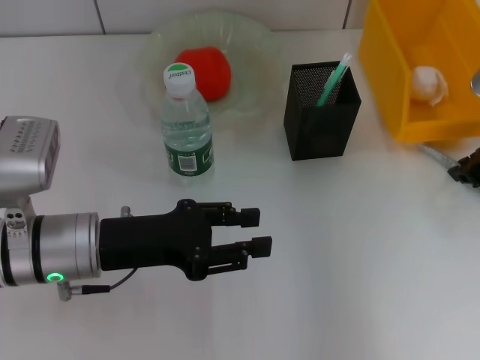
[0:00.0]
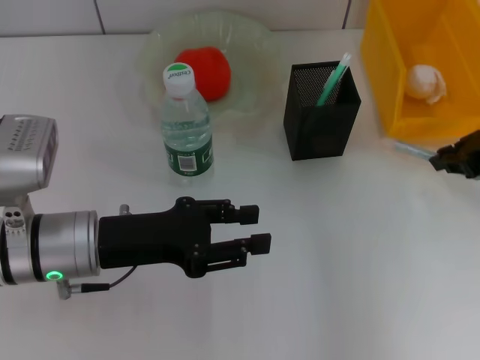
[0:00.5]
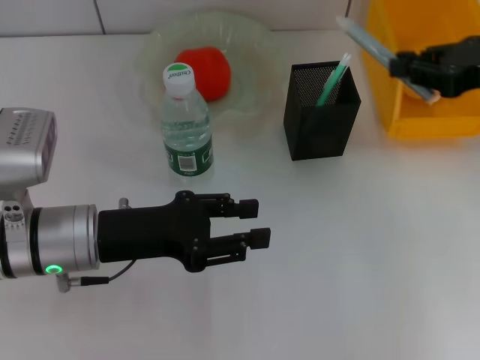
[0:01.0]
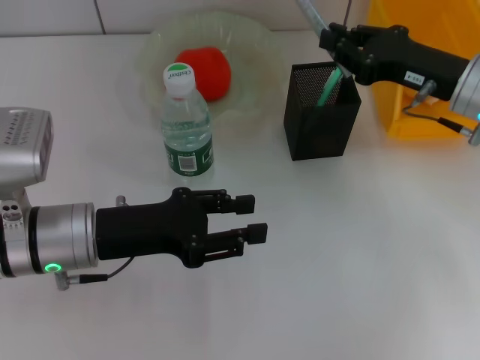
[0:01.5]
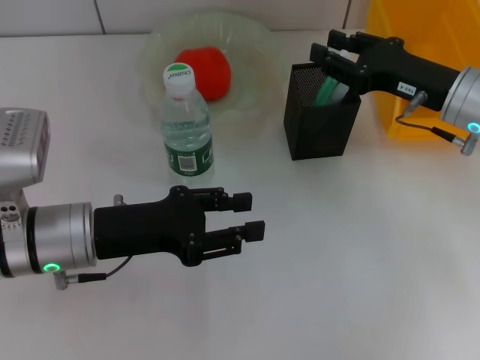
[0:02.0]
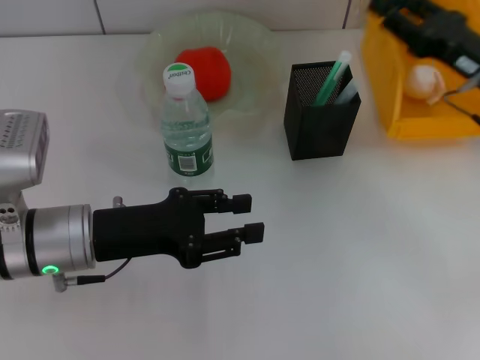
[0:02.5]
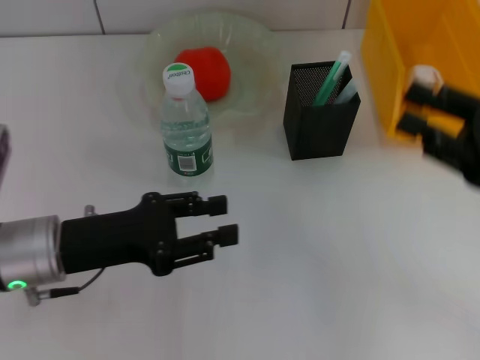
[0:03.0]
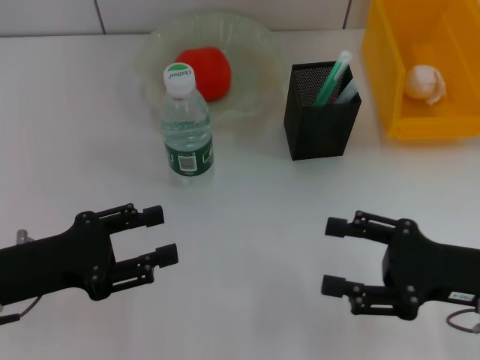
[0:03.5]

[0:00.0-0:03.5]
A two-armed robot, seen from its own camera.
Step, 0:00.5 to 0:02.0: Place the gray glue into the pen holder with the right hand.
0:00.0 to 0:02.0: The right gripper moves to the left, some 5 cm, and travels upward and back again, approximately 5 cm each way.
0:02.0 to 0:03.5: The right gripper is displaced backward by approximately 15 cm, and opens up; the left gripper shifts approximately 10 cm to the left.

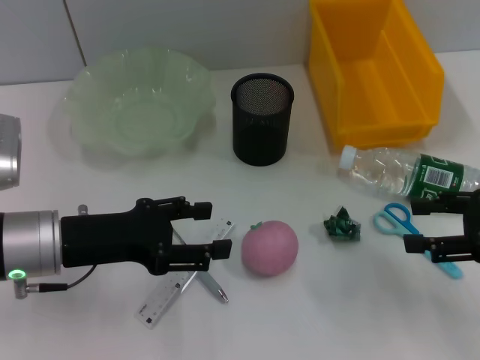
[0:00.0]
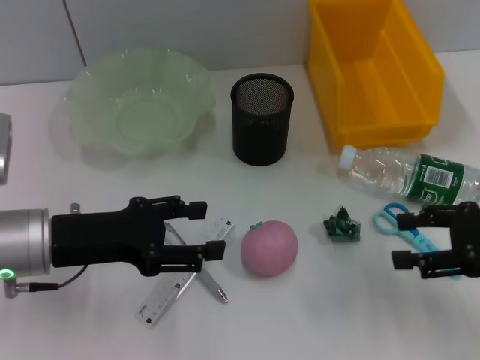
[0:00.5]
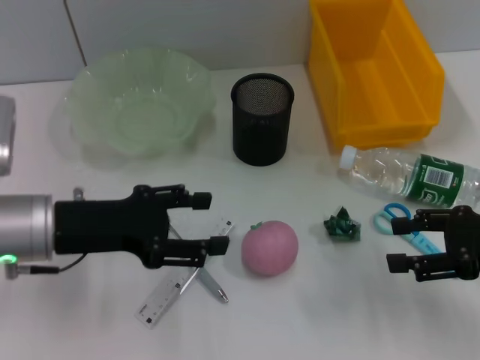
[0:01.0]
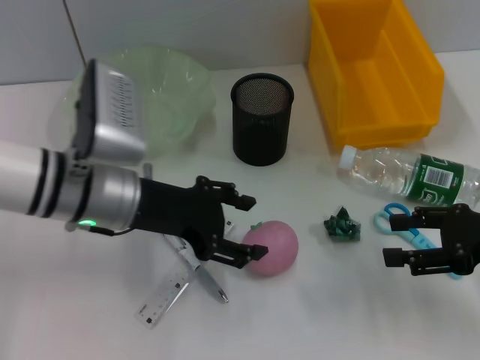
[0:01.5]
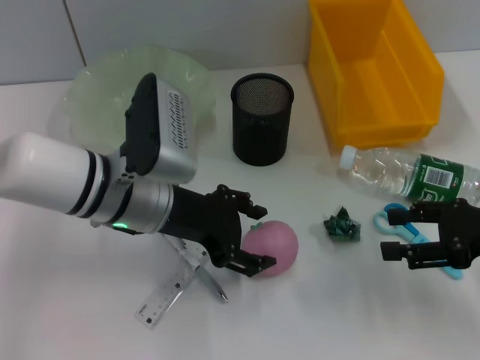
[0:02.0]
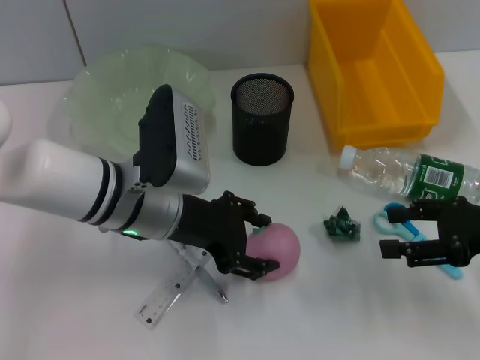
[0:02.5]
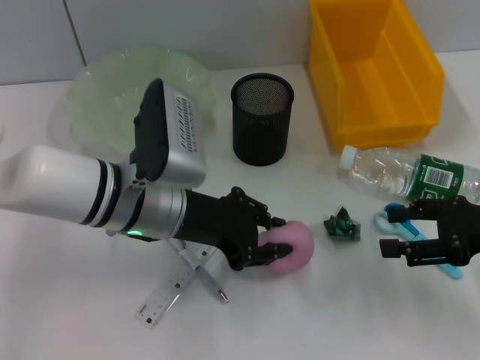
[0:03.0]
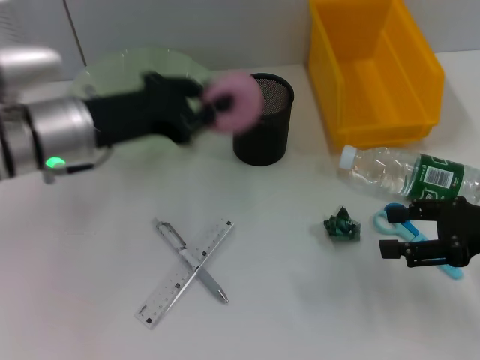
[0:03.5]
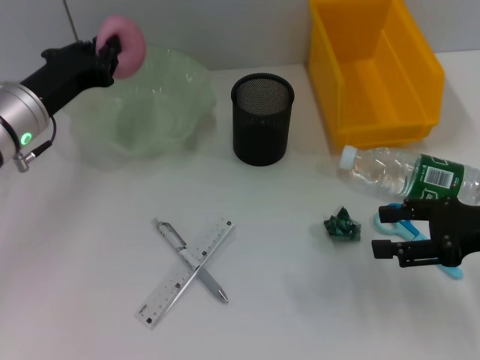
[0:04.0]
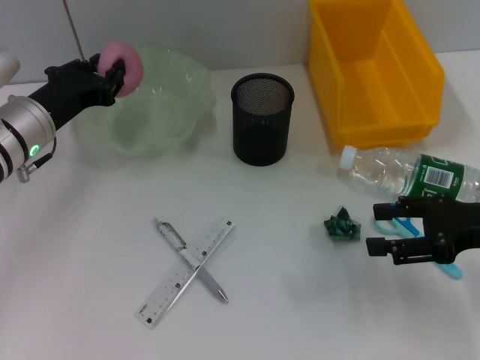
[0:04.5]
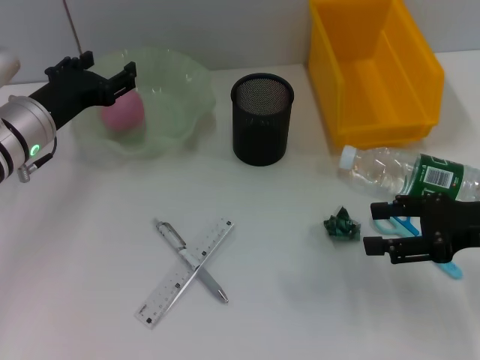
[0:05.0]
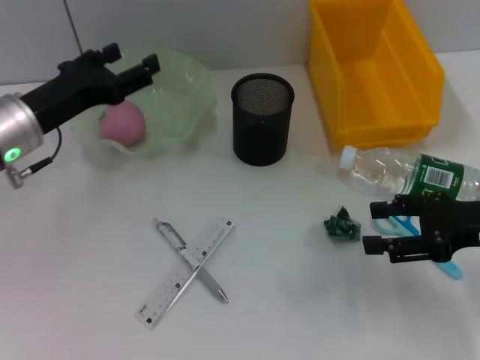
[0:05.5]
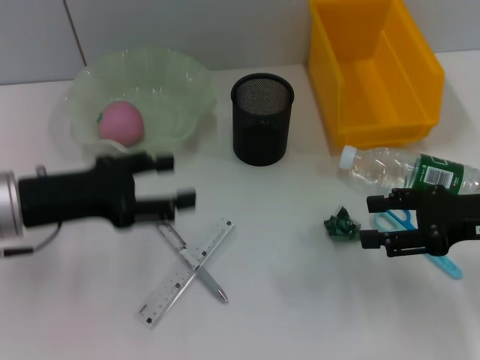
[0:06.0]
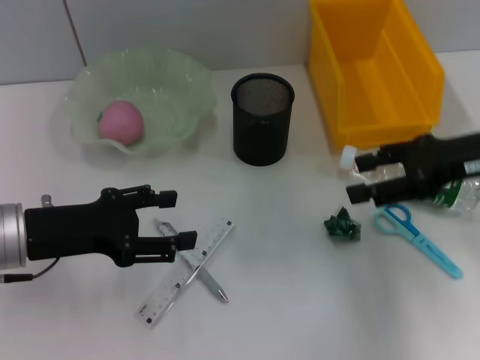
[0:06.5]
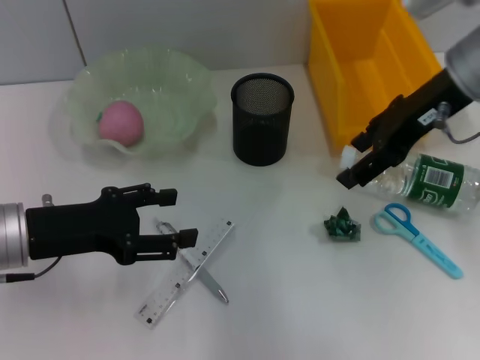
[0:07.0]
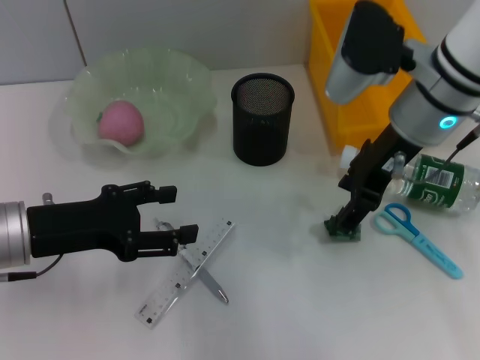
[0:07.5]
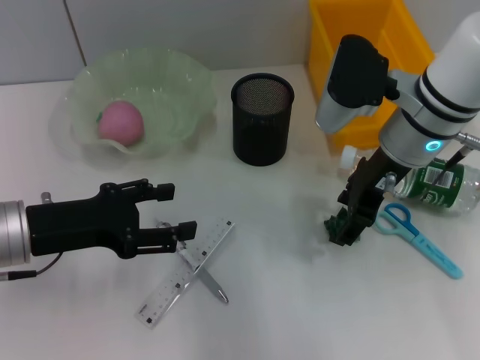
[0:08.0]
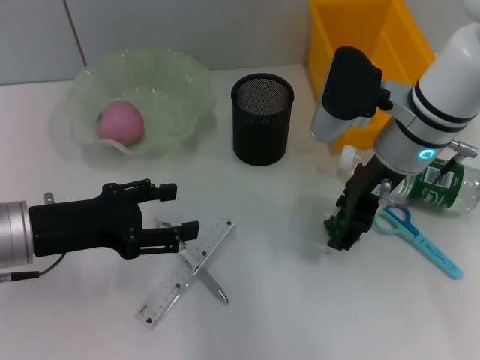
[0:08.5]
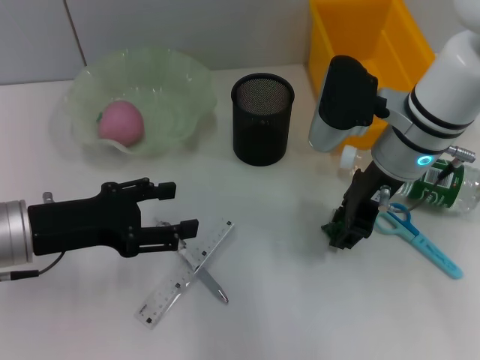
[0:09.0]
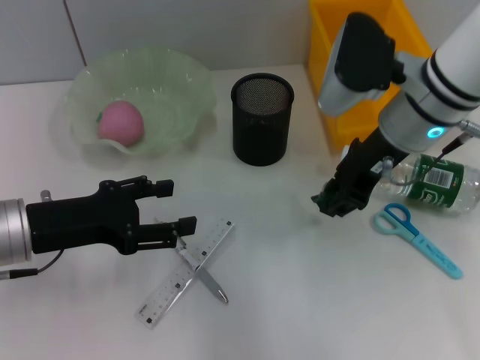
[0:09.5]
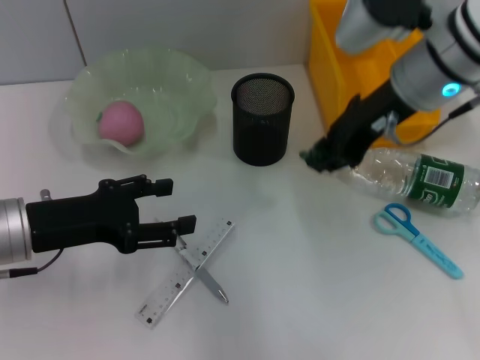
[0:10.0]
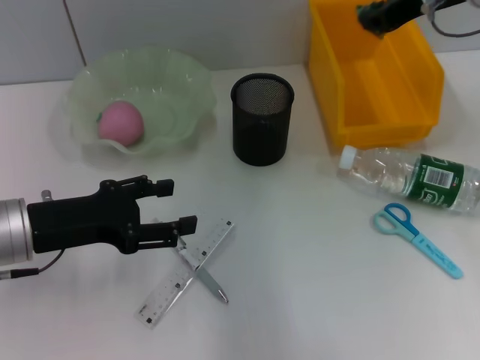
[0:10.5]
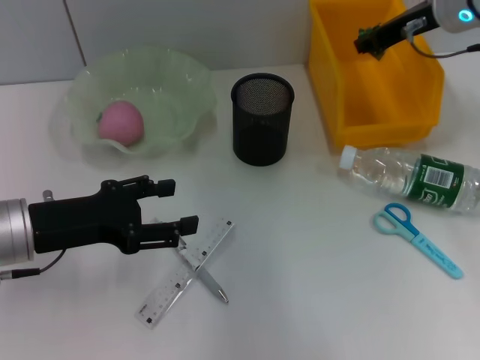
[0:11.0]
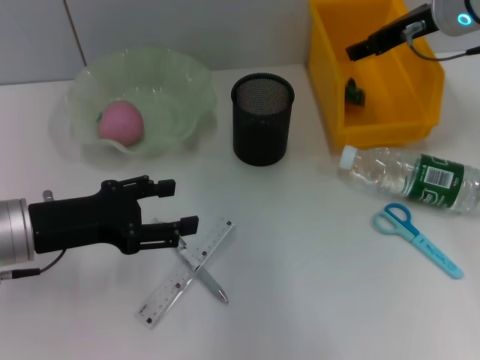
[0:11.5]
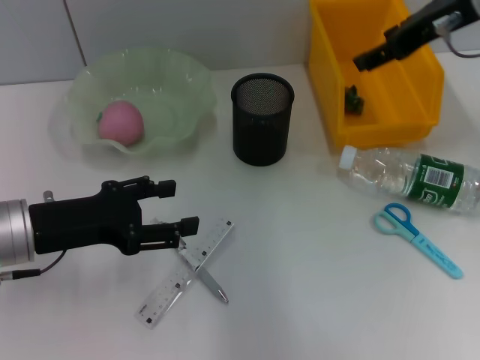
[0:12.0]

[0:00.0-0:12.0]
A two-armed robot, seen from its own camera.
Step, 0:00.0 to 0:02.5: Grab the peach with the left hand.
Step, 0:03.0 to 0:04.5: Place the peach into the fruit bowl with the left hand.
Step, 0:05.0 to 0:09.0: Grab the plastic with the right hand.
0:00.0 to 0:02.0: The left gripper shifts roughly 10 cm to the right.
0:02.0 to 0:04.0: The left gripper is displaced to the left and forward by some 10 cm, and closes its fingers.
0:04.0 to 0:06.0: The left gripper shifts approximately 10 cm backward, and opens up.
0:06.0 to 0:08.0: The right gripper goes about 15 cm to the left and forward.
0:08.0 to 0:10.0: The right gripper heads upward, covering some 5 cm, and closes.
0:10.0 to 0:12.0: The right gripper moves to the right, roughly 5 cm, and opens its fingers.

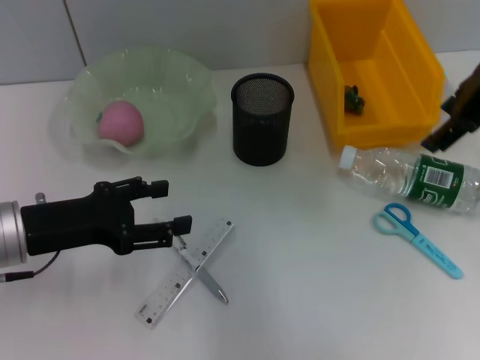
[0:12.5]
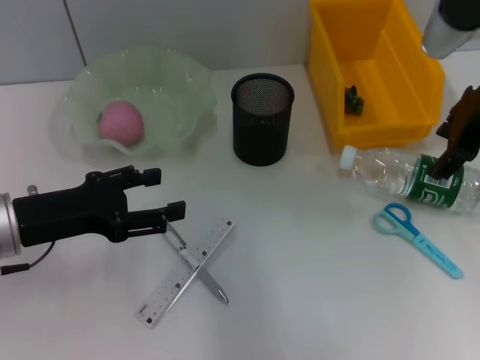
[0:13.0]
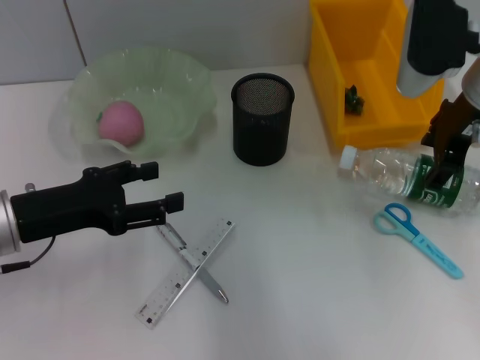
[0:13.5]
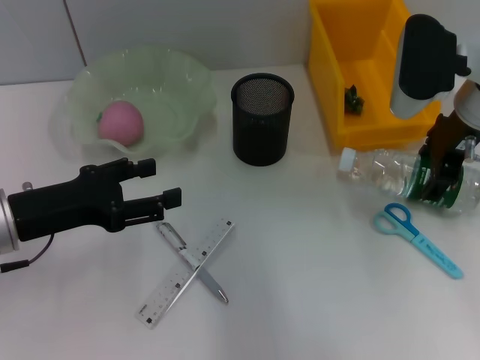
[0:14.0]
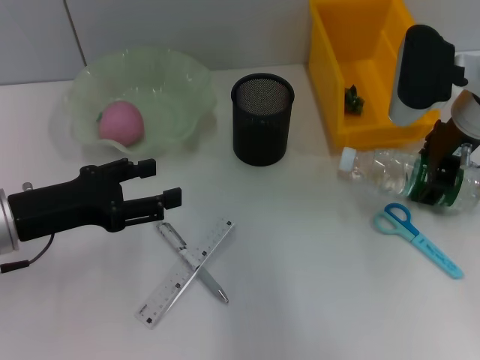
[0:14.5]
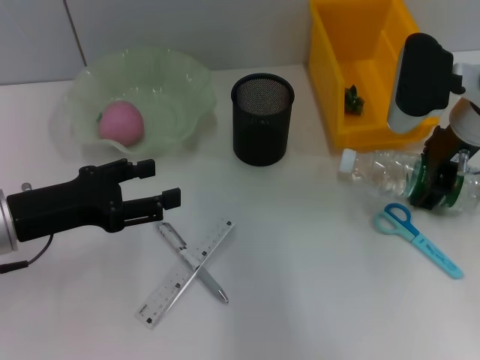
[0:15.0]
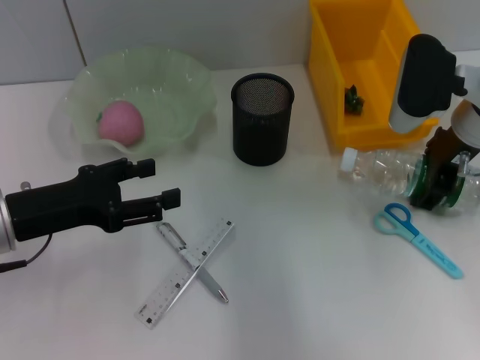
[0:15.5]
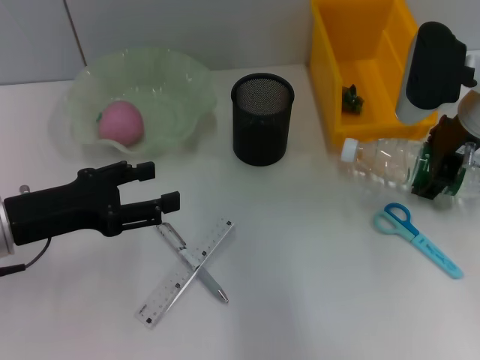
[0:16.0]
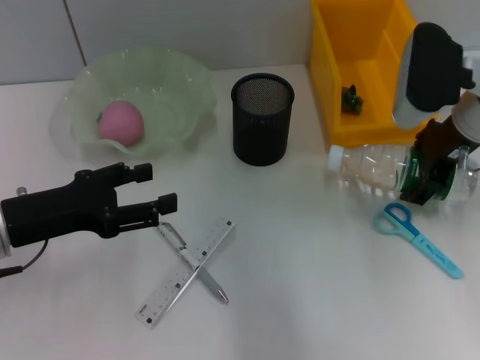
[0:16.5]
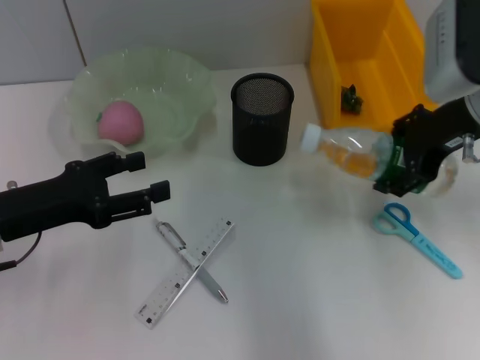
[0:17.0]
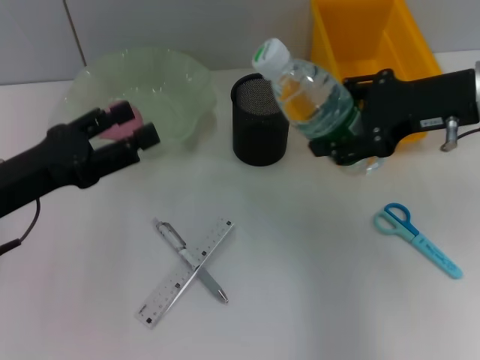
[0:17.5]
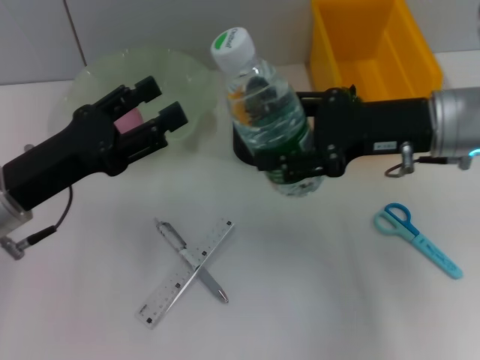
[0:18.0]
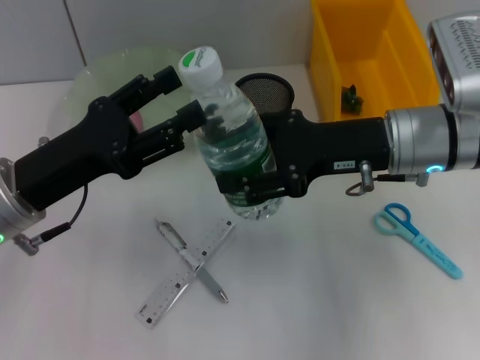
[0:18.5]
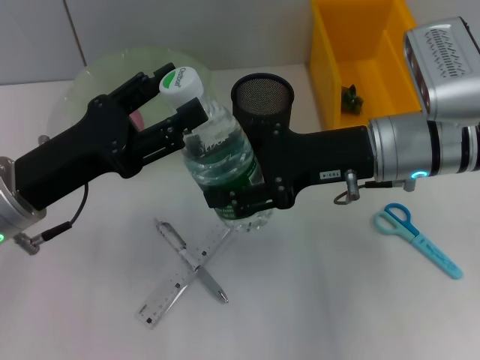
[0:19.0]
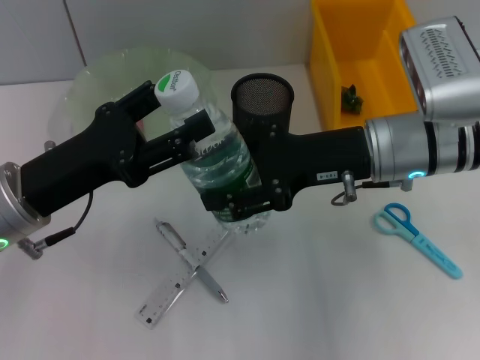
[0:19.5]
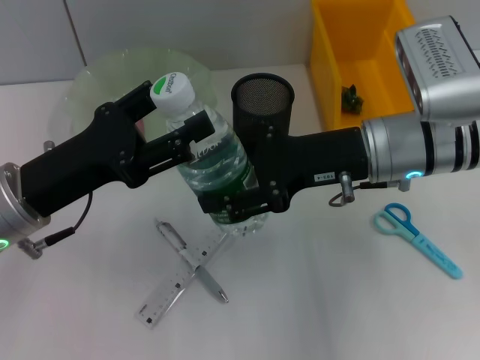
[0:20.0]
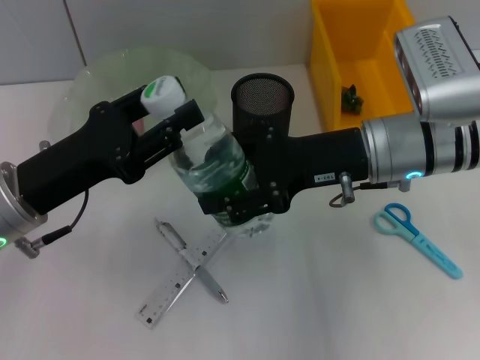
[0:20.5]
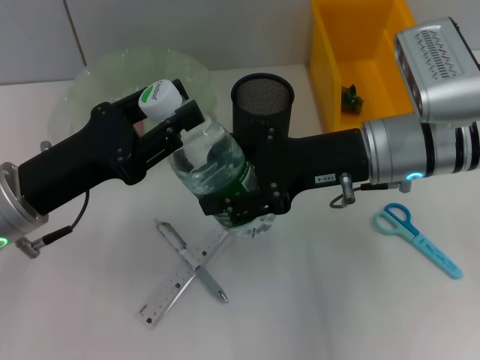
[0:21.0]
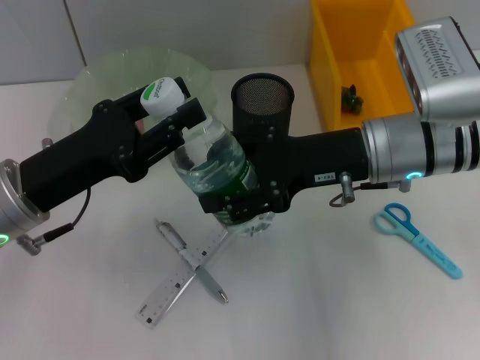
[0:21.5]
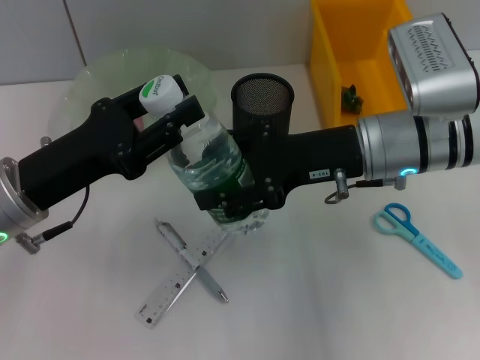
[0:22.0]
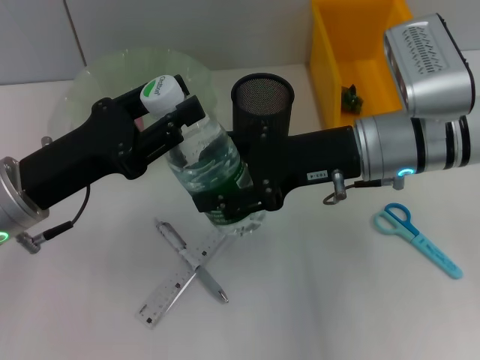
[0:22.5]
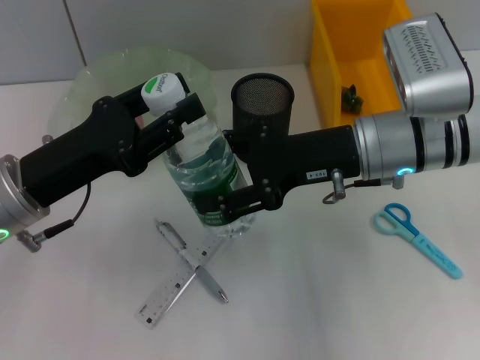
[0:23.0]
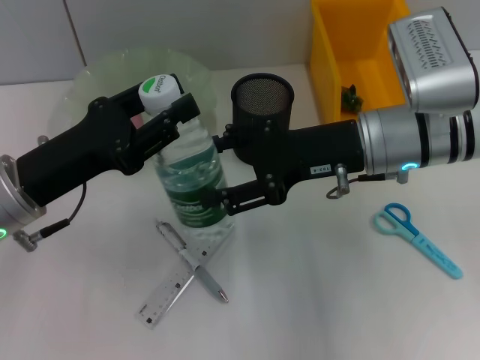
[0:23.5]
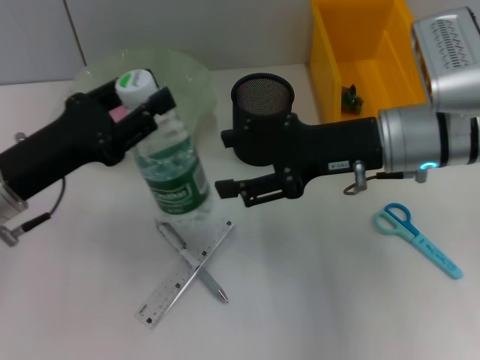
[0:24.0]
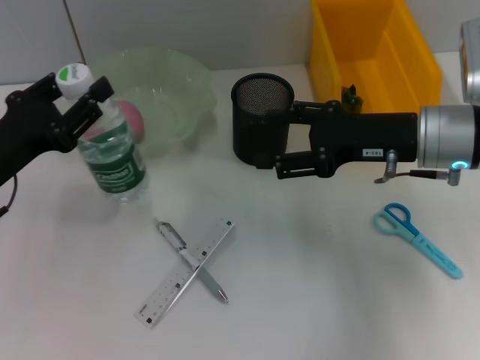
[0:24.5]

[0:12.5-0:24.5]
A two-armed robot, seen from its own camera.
Step, 0:12.5 to 0:15.5: Grab the water bottle with the right hand.
Step, 0:16.0 to 0:24.0: Pass the water bottle from the right hand to the left hand.
0:12.5 to 0:14.5: The right gripper shifts roughly 10 cm downward.
0:14.5 to 0:16.5: There are only small adjustments of the grippers.
0:16.5 to 0:18.5: The right gripper shifts approximately 5 cm to the left.
0:18.5 to 0:20.5: The grippers make only small movements.
0:20.5 to 0:22.5: The left gripper closes up.
0:22.5 to 0:24.5: The left gripper goes some 5 cm to the left, while the right gripper moves to the right, approximately 5 cm.
